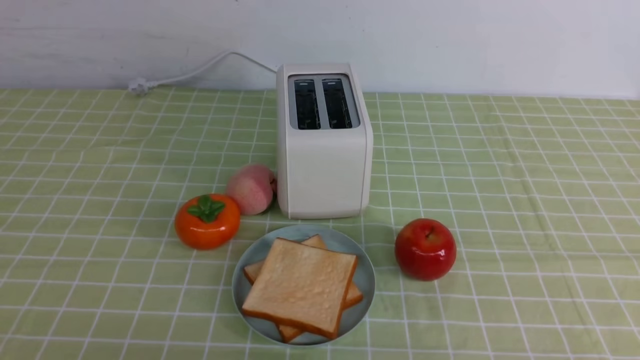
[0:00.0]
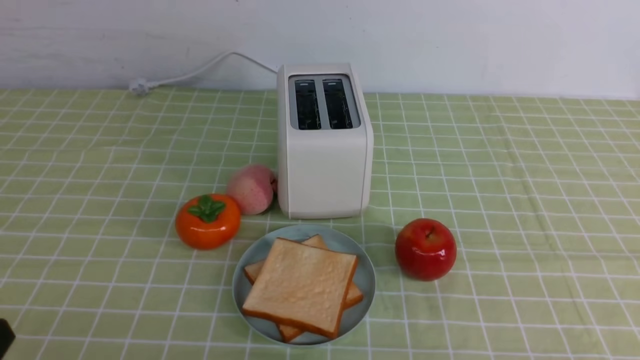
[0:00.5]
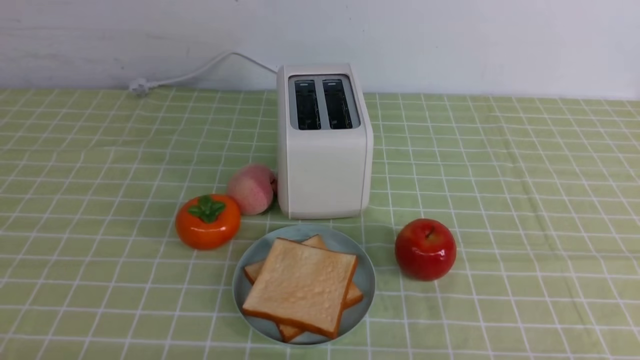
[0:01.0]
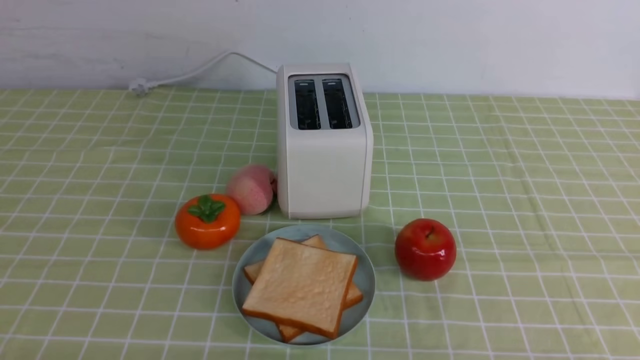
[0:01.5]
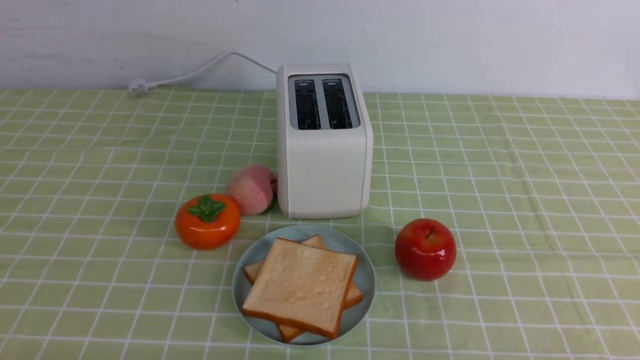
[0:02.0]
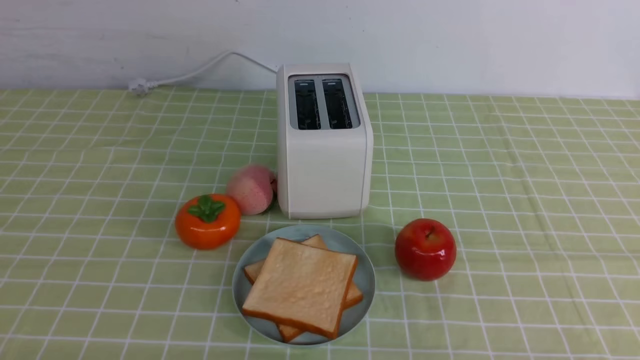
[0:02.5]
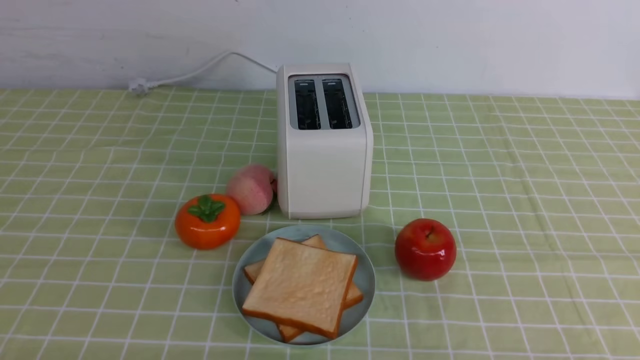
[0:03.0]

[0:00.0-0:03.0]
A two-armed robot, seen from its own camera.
Task of the whole recording: take toasted bread from bread machine on green coffee tablecloth place on plate.
0:01.5 to 0:03.0: Both grippers stay put.
